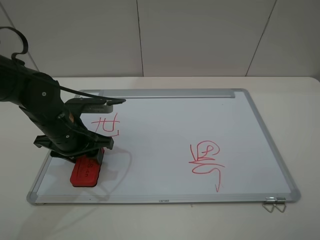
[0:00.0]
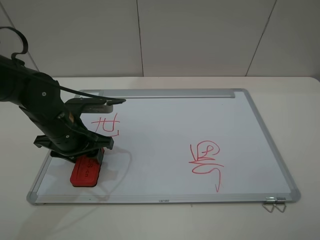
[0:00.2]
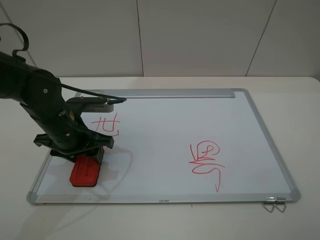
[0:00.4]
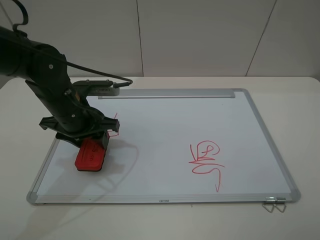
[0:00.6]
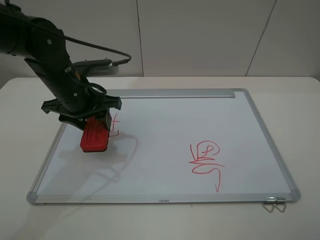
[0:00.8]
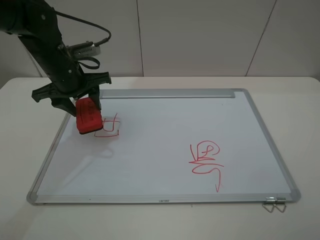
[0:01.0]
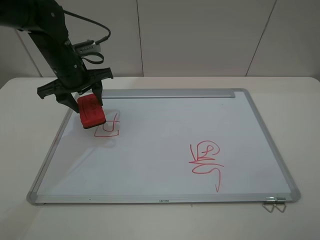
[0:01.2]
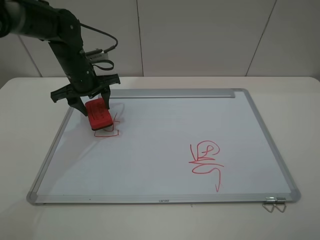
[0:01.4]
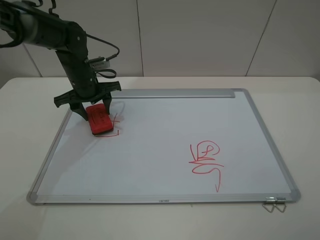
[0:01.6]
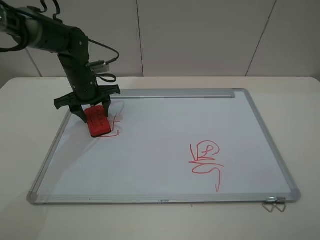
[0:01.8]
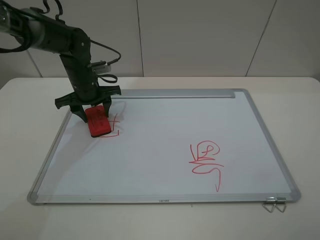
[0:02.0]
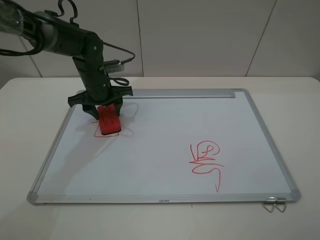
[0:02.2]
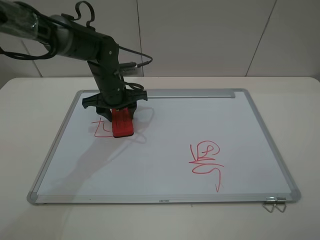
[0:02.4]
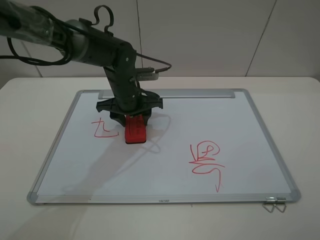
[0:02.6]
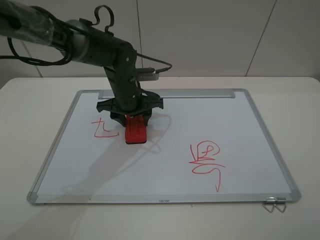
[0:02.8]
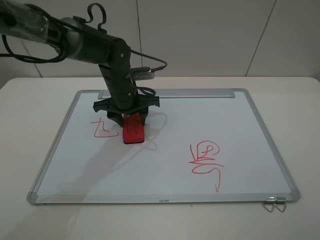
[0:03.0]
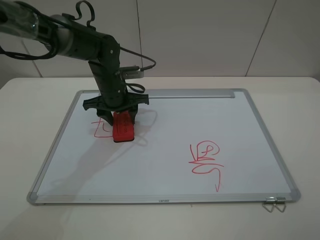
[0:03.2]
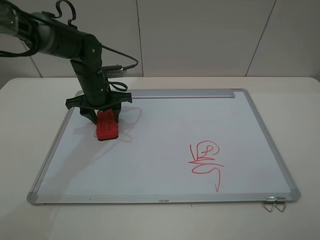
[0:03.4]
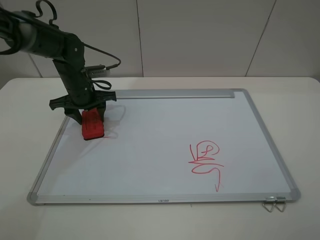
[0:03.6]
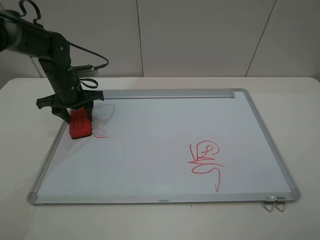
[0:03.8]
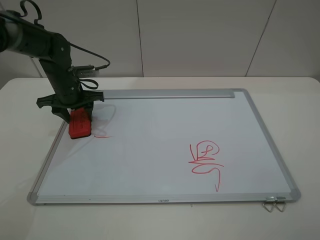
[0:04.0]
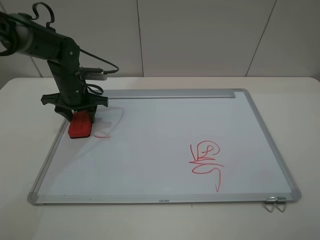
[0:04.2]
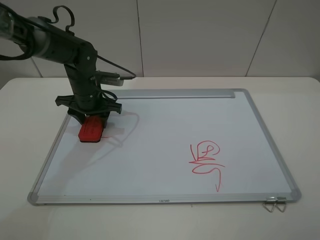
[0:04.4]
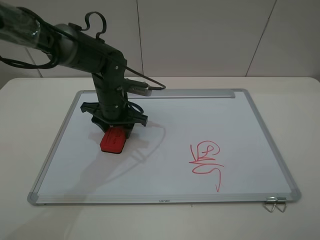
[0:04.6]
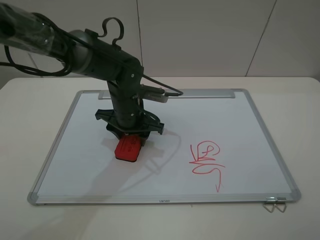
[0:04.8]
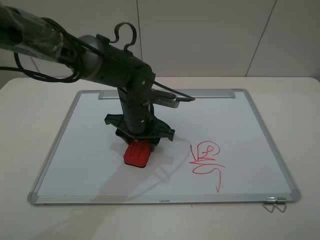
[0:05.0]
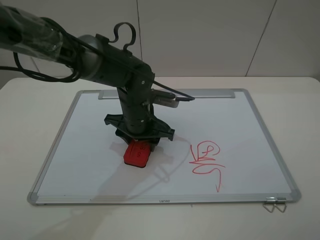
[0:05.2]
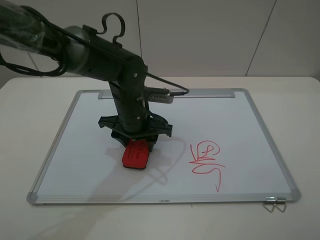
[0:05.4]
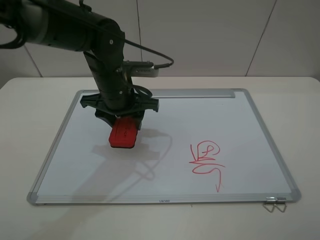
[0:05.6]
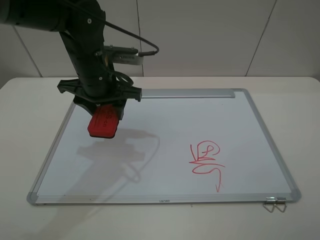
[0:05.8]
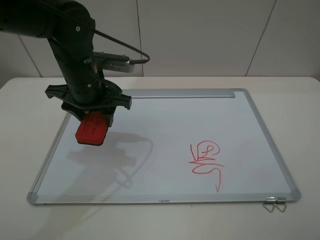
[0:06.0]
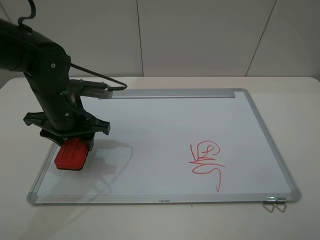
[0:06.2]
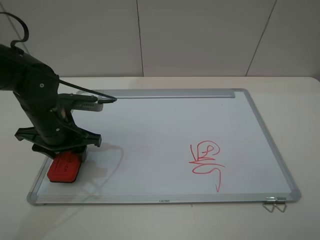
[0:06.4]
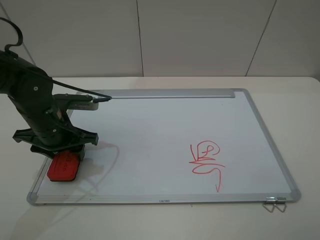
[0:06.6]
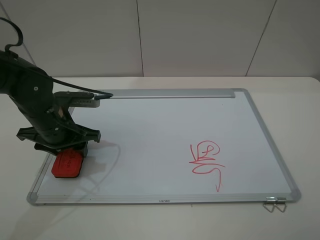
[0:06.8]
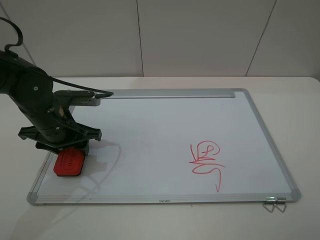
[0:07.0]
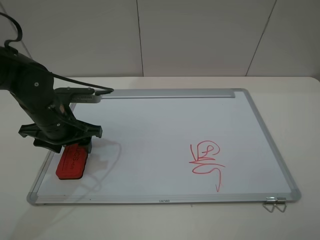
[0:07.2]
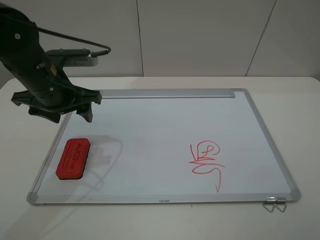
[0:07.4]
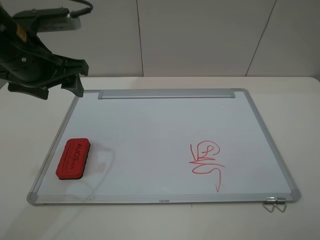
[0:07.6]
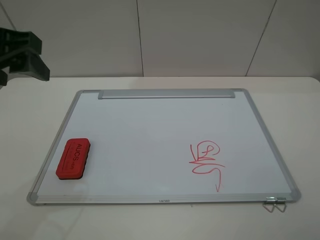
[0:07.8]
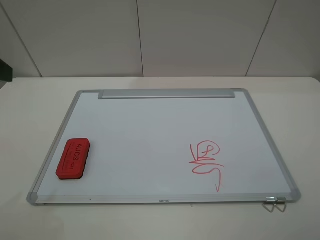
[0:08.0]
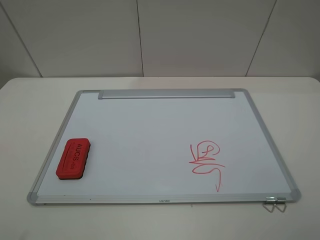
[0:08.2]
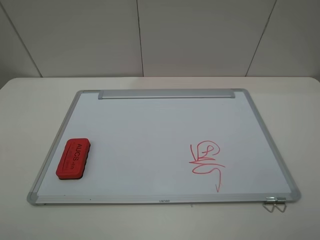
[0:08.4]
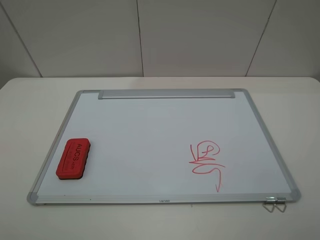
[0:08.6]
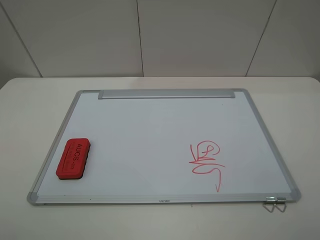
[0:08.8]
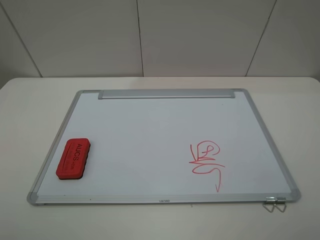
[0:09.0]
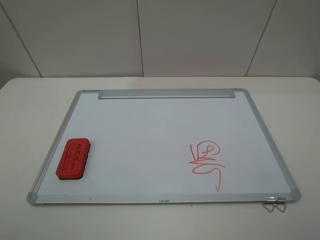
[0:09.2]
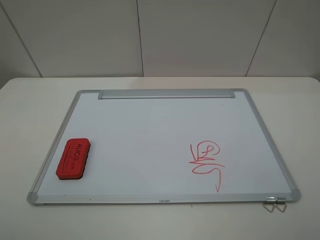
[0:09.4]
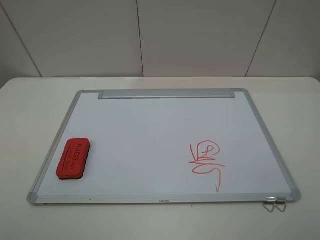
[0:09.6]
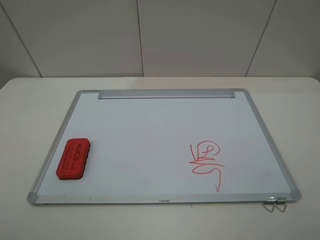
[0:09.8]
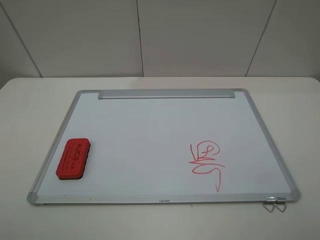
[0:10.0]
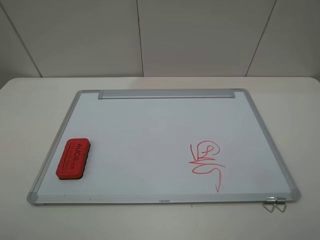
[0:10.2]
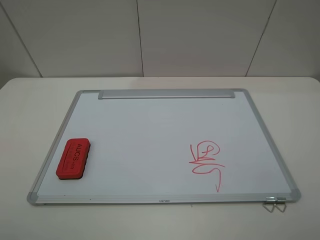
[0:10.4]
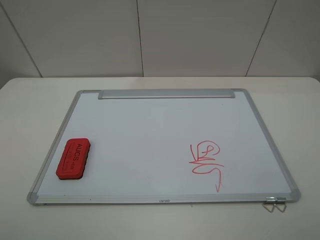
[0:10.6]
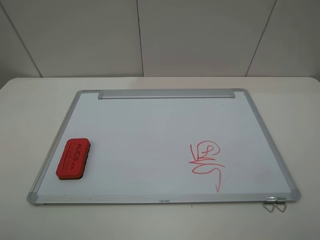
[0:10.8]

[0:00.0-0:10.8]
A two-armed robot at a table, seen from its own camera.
Step, 0:00.2 to 0:05.4: Grasp the eraser and wipe the blackboard with the left gripper.
Step, 0:05.6 to 0:07.2: Place the eraser with the left gripper.
0:00.0 to 0:01.6: The left gripper moves forward, some 15 cm.
0:01.6 to 0:03.0: The left gripper moves to the right, roughly 10 cm.
0:03.0 to 0:04.6: The left gripper reaches some 15 cm to the left, then returns.
0:04.6 to 0:06.2: The left gripper heads to the left, backward and upward, covering about 10 cm.
0:06.2 to 0:07.8: The left gripper goes some 20 cm upward, and opens up.
0:07.8 to 0:09.2: The left gripper shifts about 20 cm backward and to the left.
